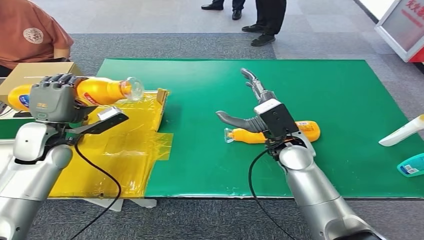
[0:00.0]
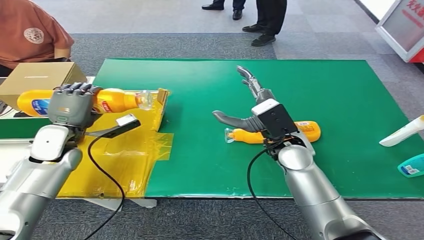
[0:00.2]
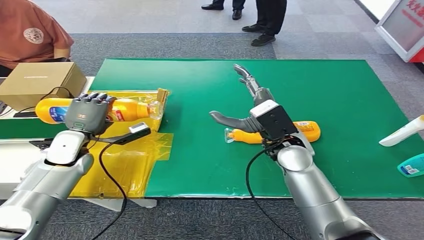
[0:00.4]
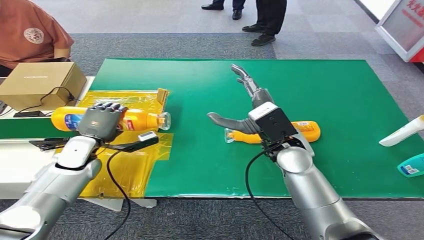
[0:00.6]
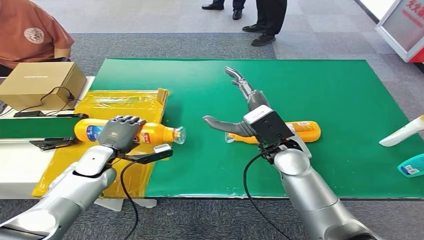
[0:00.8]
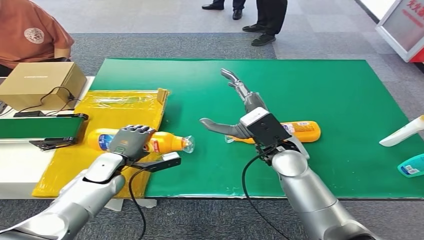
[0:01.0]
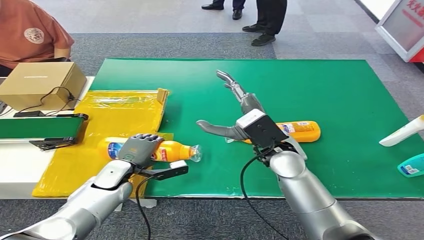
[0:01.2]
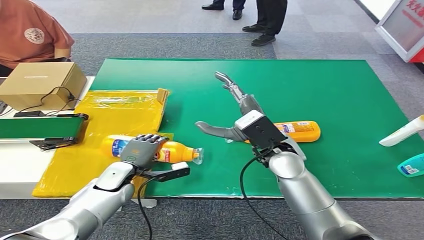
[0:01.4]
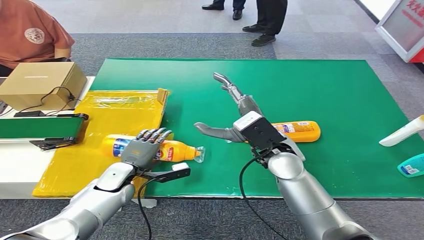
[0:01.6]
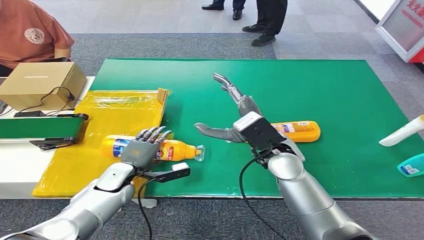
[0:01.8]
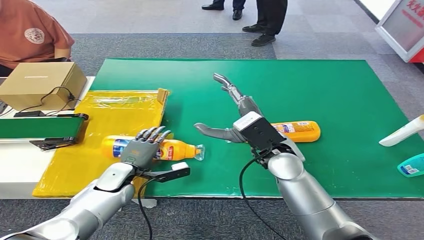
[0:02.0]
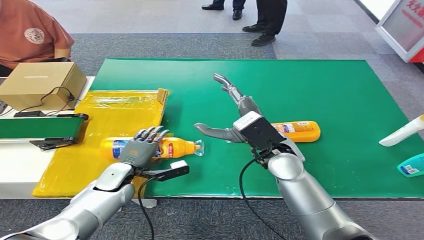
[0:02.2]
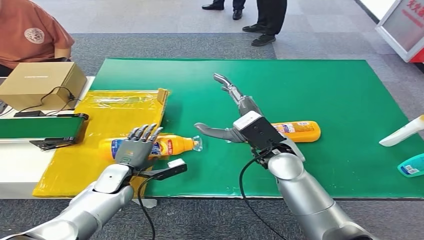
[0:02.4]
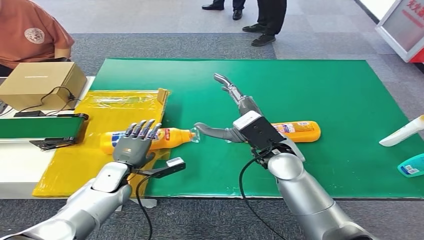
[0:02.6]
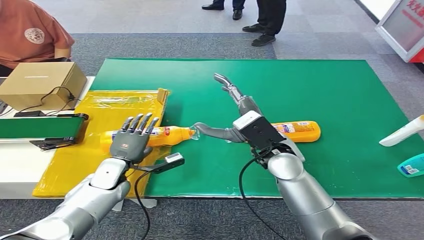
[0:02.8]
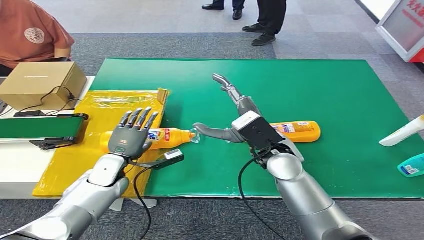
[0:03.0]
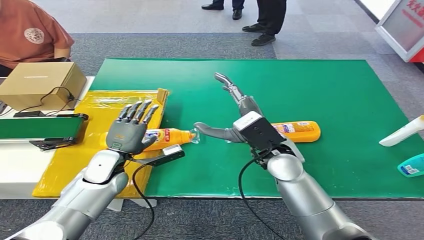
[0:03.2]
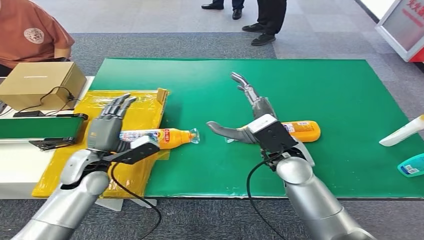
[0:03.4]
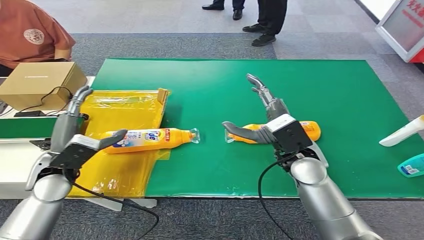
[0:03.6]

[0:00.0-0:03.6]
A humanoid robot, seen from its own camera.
Step, 0:00.0 to 0:03.6: Turn the bottle to the front side.
